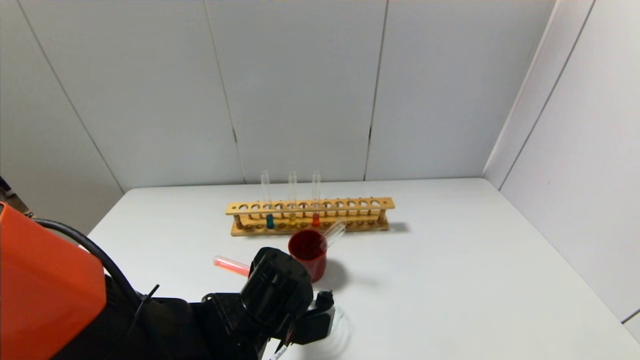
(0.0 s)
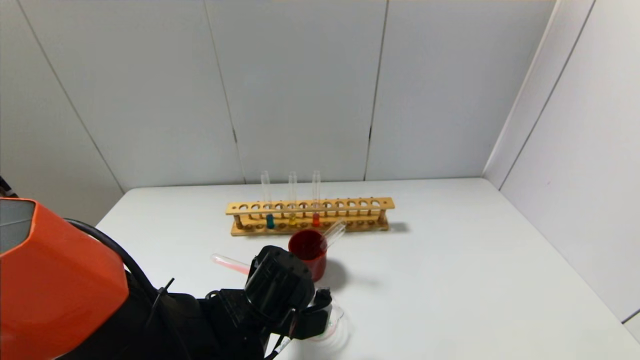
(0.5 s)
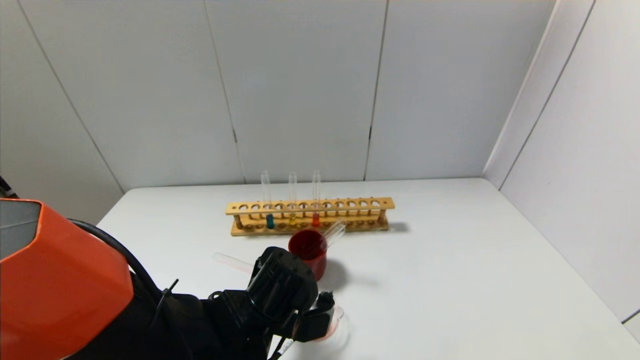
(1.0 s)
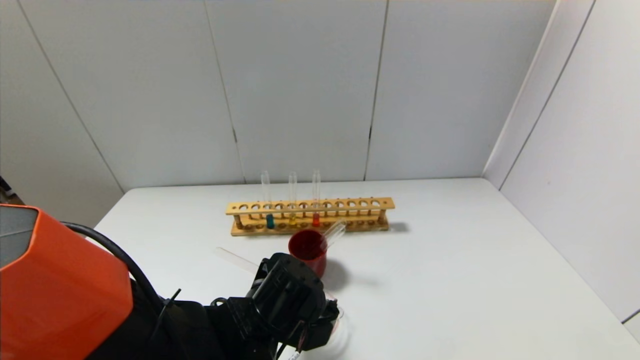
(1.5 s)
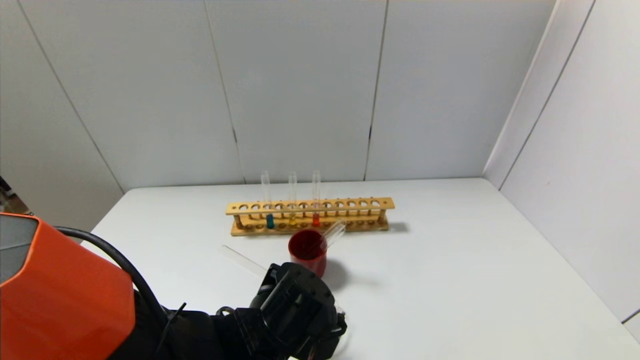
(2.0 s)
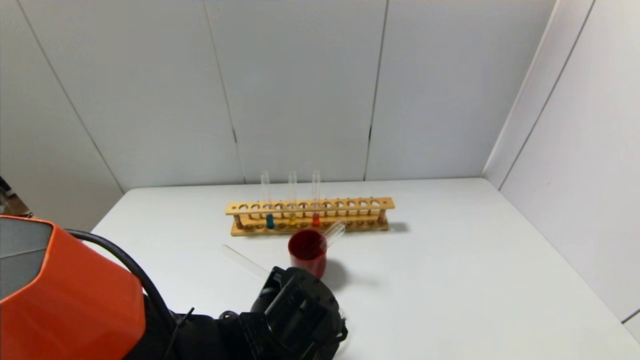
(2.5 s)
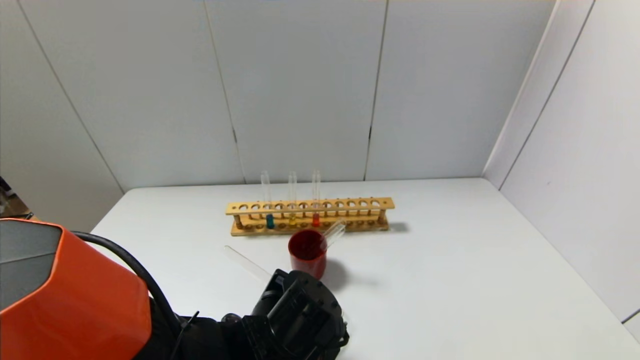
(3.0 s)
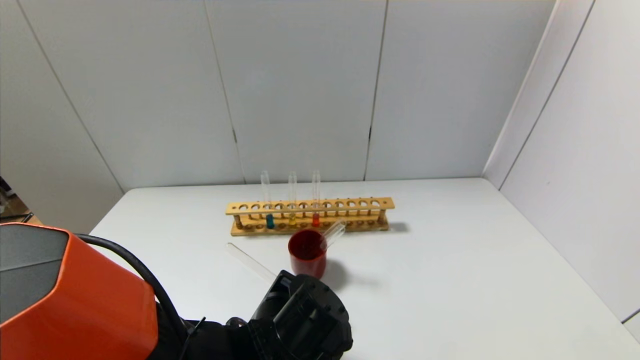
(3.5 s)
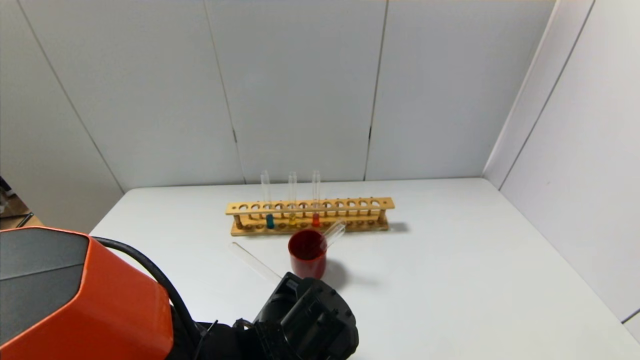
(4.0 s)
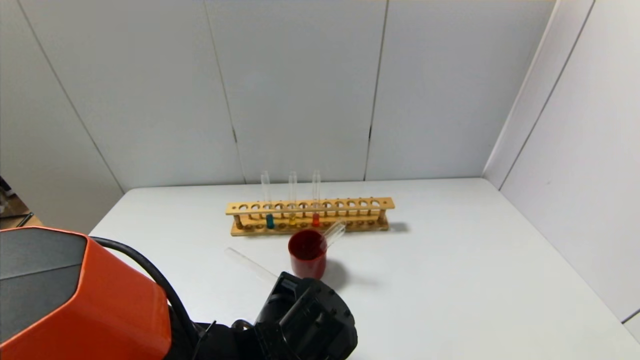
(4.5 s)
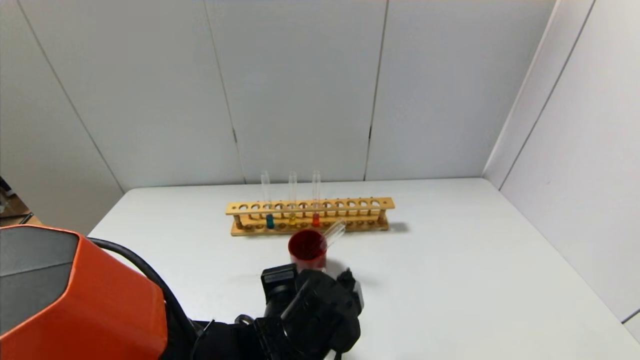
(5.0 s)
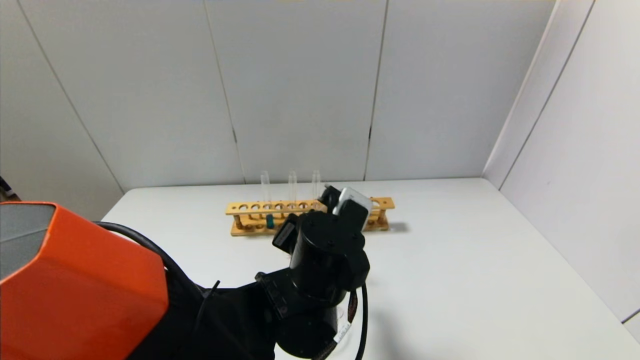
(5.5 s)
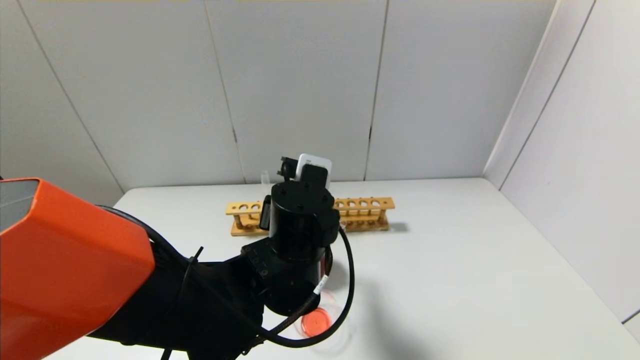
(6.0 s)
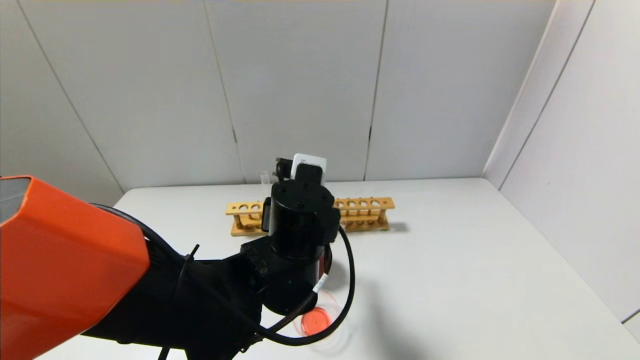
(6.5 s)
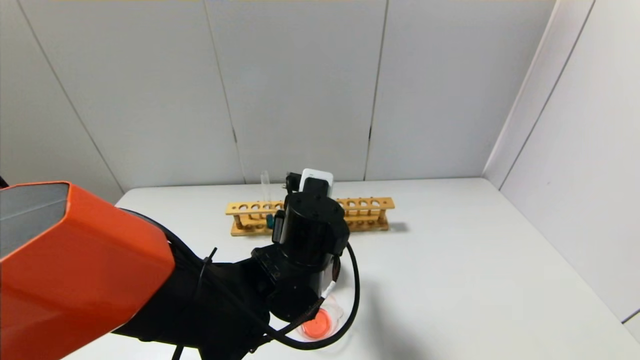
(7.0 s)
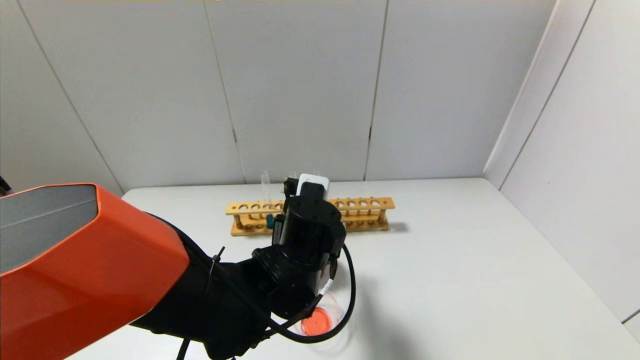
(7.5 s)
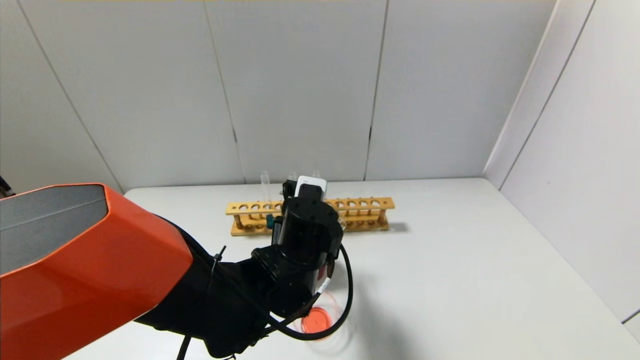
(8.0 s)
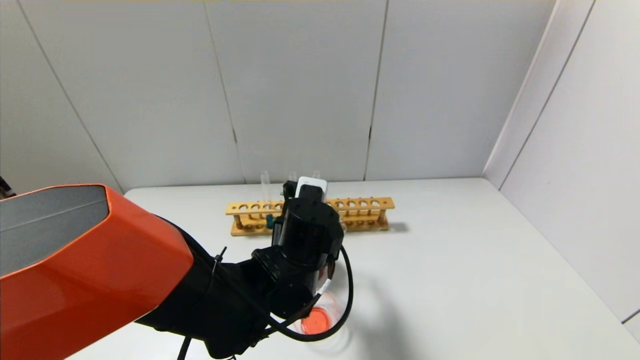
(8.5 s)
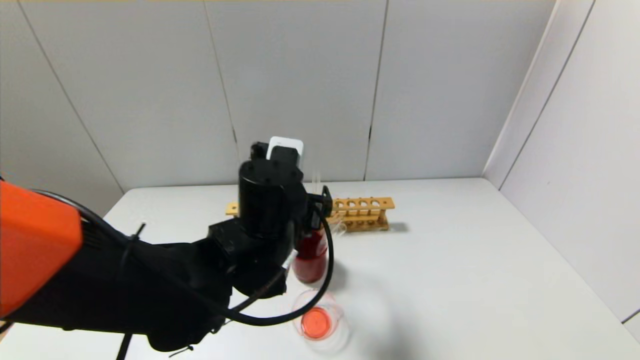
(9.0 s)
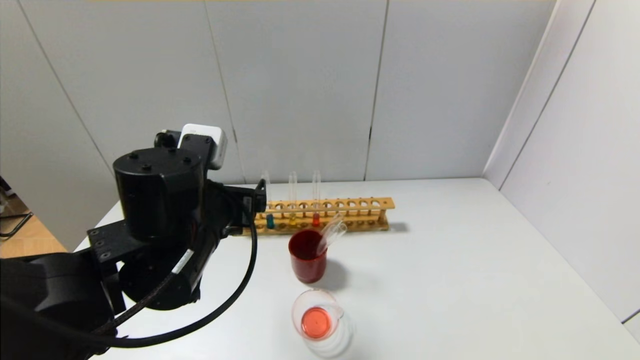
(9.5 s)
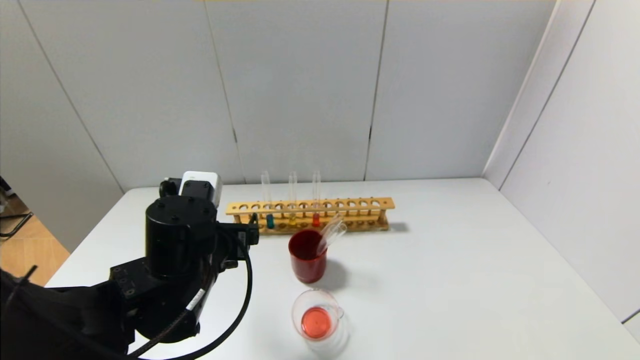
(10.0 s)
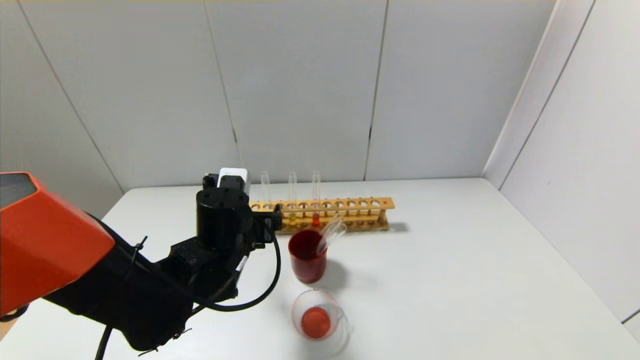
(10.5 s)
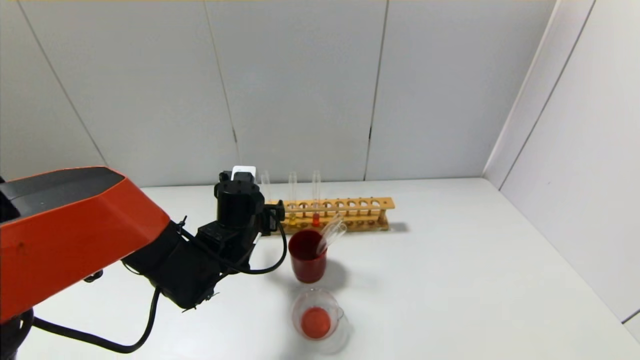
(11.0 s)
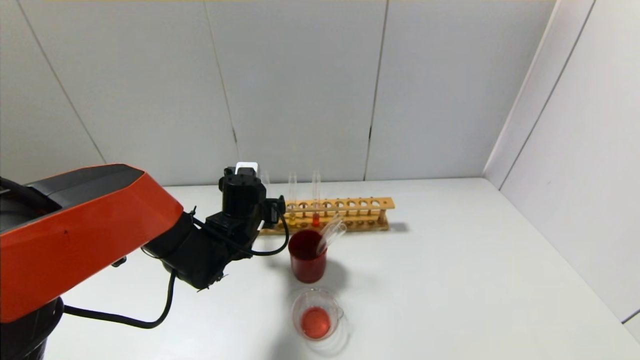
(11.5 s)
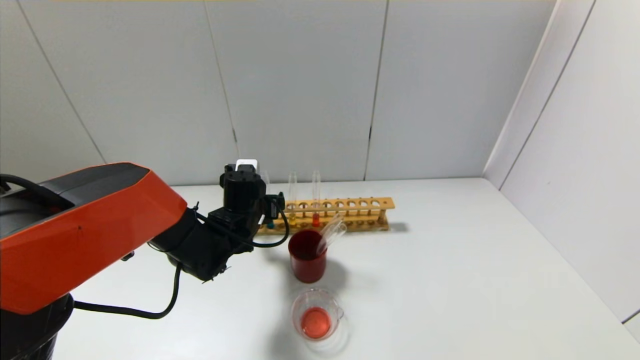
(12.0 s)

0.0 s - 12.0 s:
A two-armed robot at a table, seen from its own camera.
Step, 0.0 s - 4.5 s: Pour the red reagent into the graduated cylinder with the left gripper.
Step, 5.0 s - 8.0 s: Place the test tube into the brown cup with the left gripper.
0.0 s - 2.0 s: The grippers stay close to where they were, moving slightly.
2.0 s - 4.0 s: The grippers make only small movements.
4.0 s - 6.0 s: The left gripper is displaced upward and forward by about 10 cm.
6.0 s - 8.0 s: The grippers stay close to where they were, moving slightly.
8.0 s - 10.0 s: The left gripper shifts about 10 cm to the left, and opens up.
10.0 s - 12.0 s: The left gripper moves forward, approximately 15 cm.

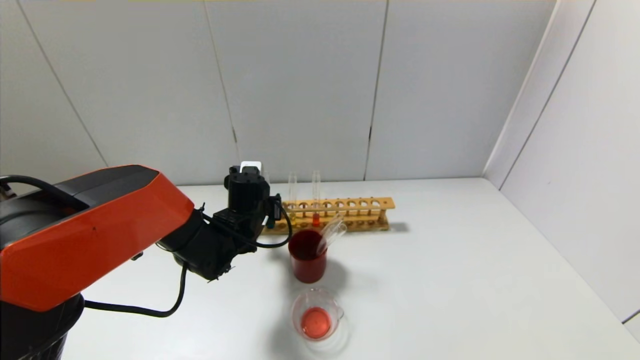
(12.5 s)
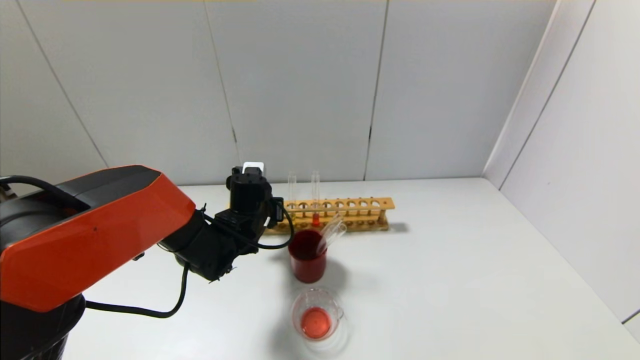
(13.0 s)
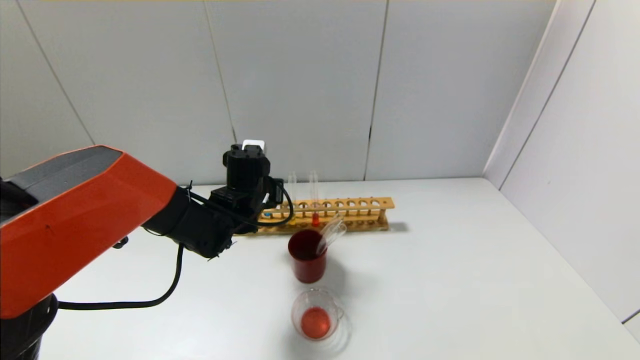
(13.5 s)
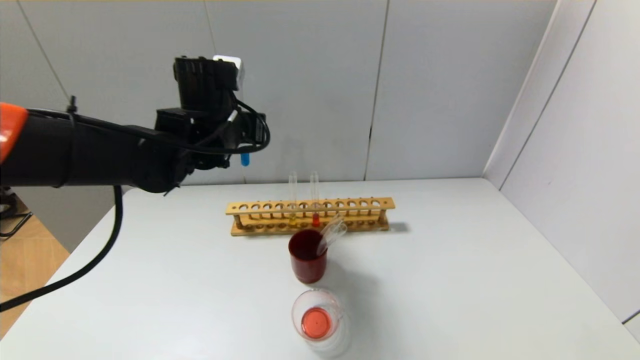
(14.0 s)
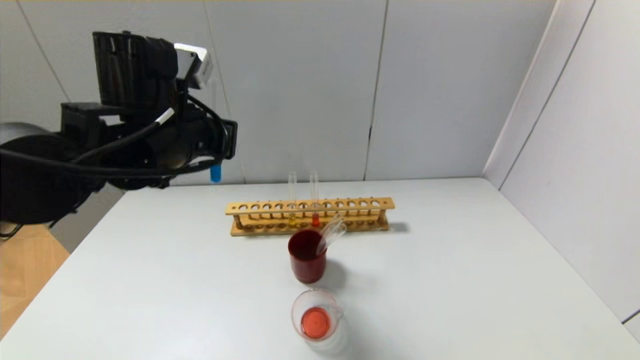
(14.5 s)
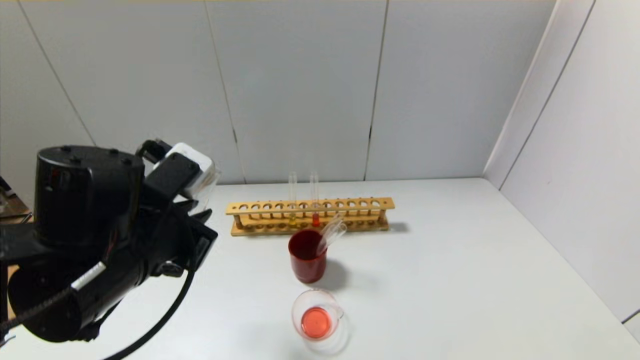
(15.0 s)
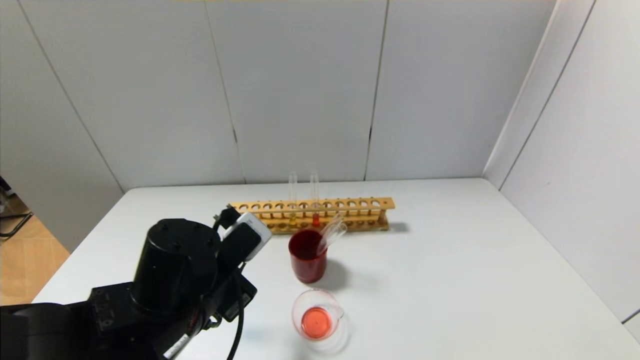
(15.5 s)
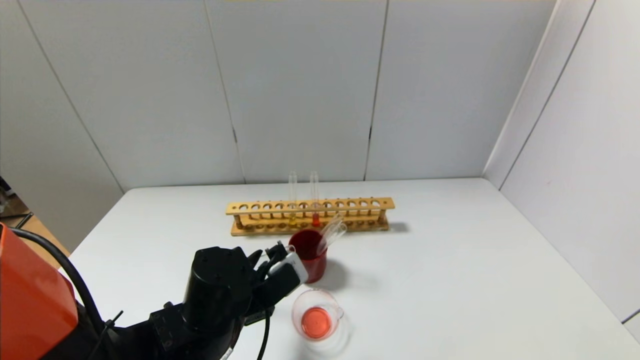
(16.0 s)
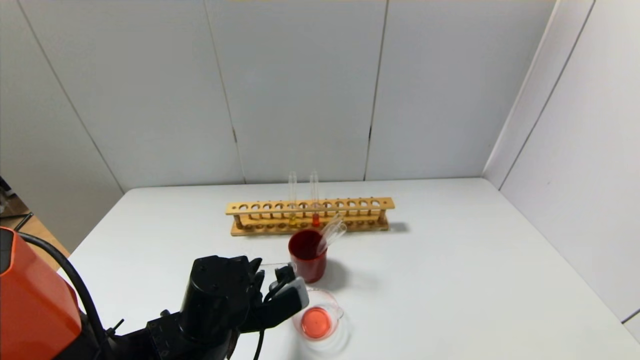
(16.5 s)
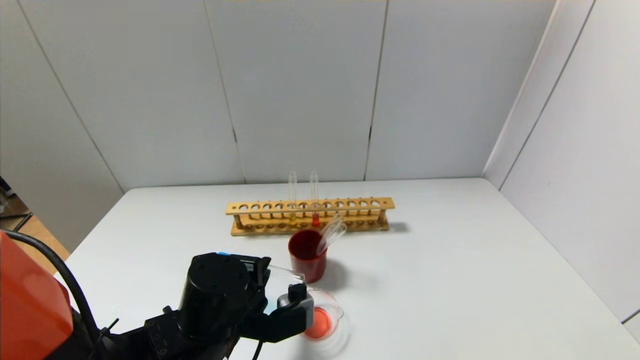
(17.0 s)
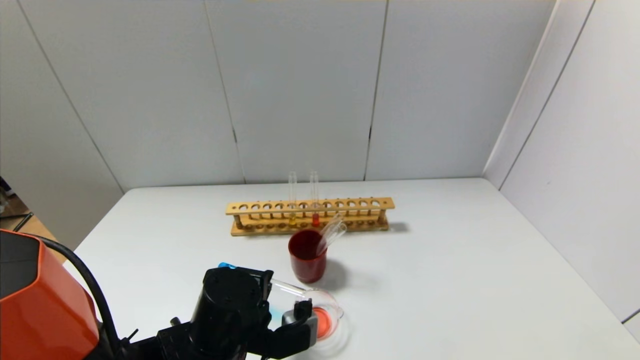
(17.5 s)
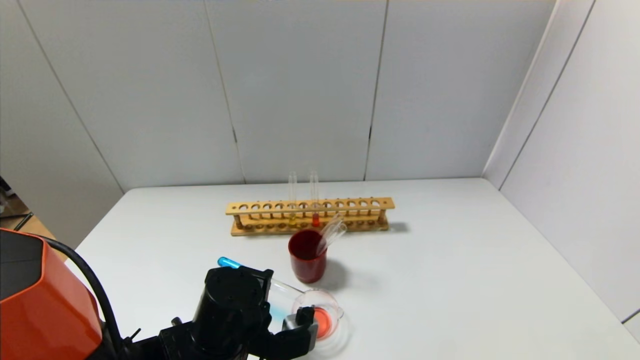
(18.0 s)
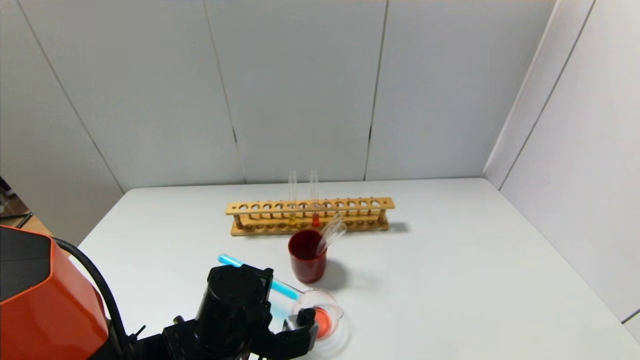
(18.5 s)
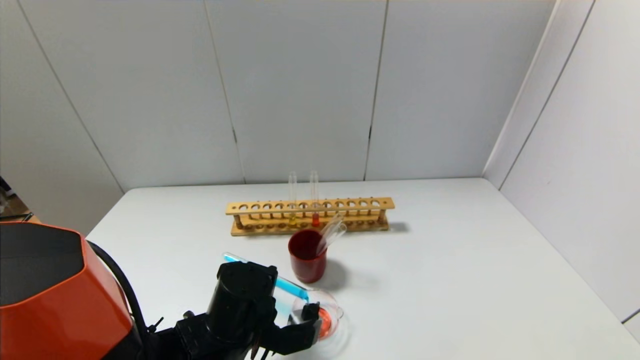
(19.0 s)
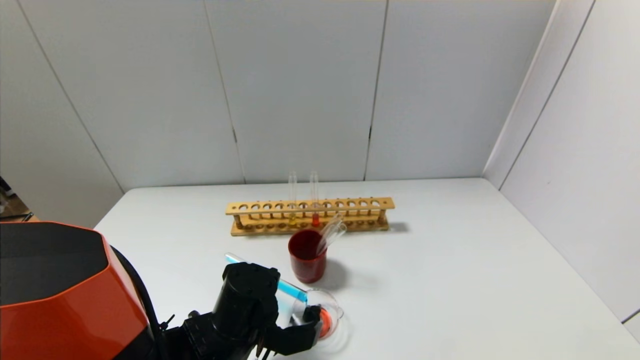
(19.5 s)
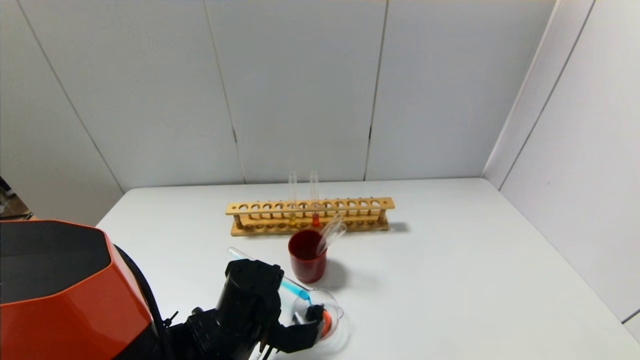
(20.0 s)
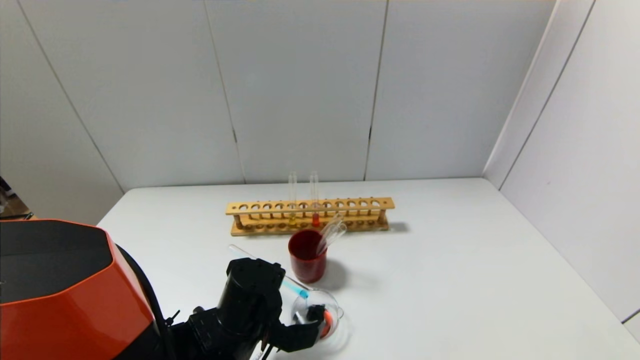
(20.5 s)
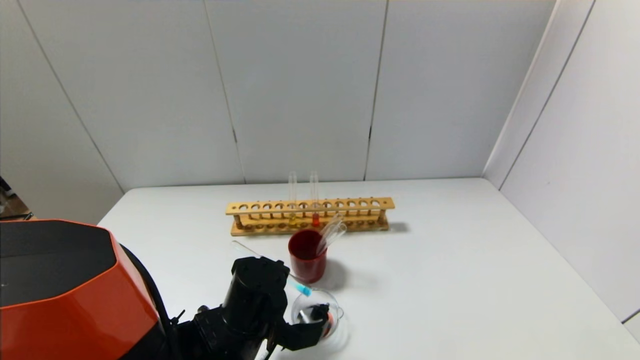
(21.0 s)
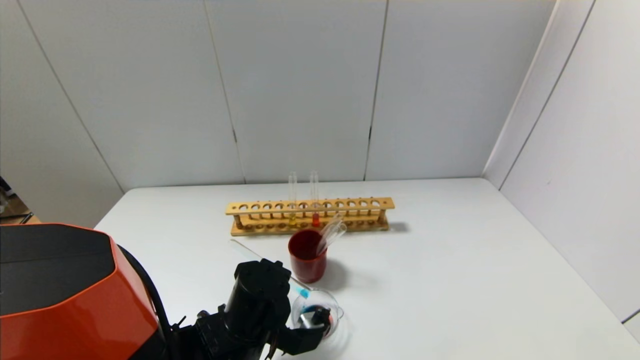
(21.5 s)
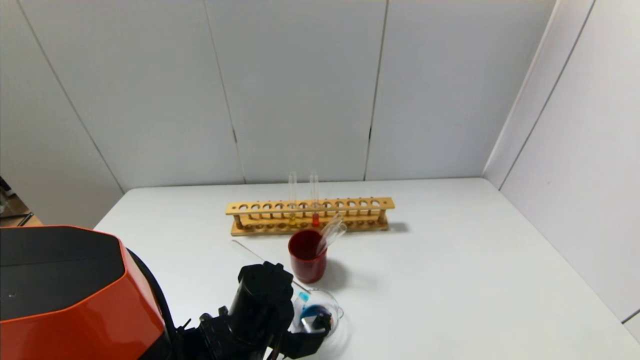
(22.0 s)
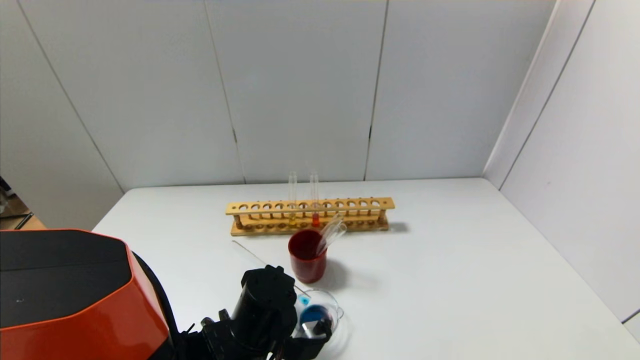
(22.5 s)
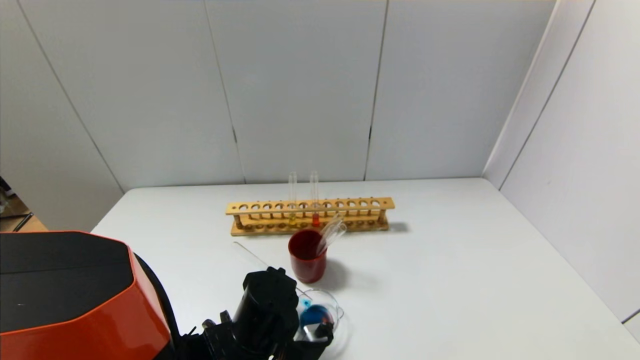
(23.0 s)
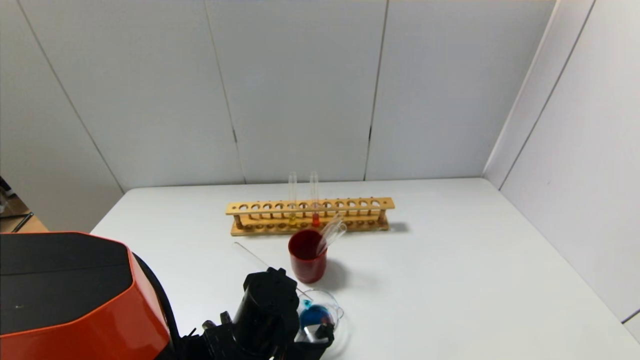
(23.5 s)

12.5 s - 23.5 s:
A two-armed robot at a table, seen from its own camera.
12.5 s - 14.5 s: The left gripper shifts some 25 cm upward and backward, and closes up.
14.5 s - 16.0 s: The left gripper moves downward and backward, about 20 cm.
18.0 s - 21.5 s: There are only small adjustments of the grippers.
21.5 s - 23.5 s: There are only small adjustments of the grippers.
